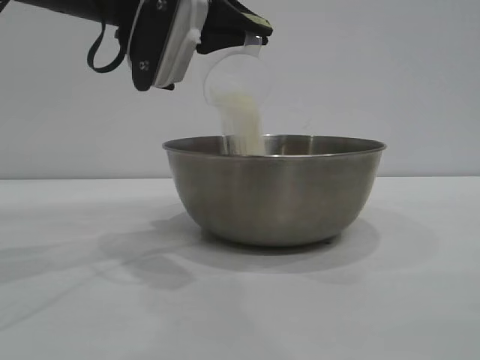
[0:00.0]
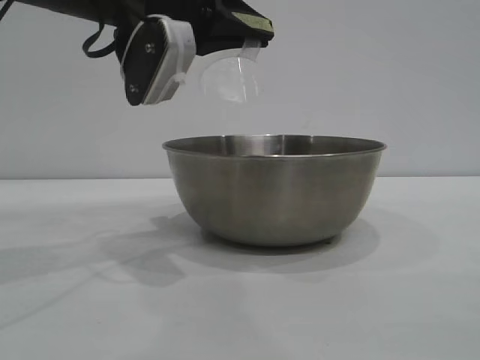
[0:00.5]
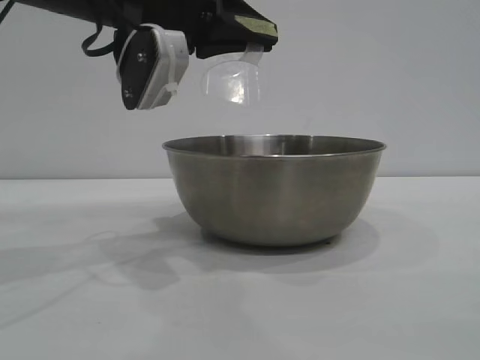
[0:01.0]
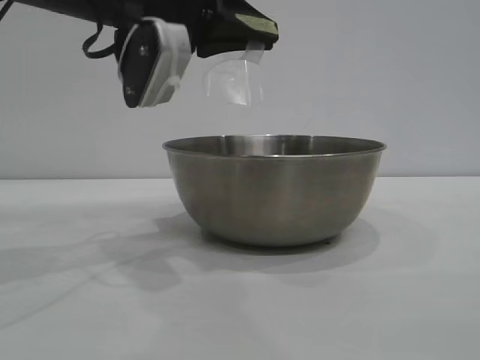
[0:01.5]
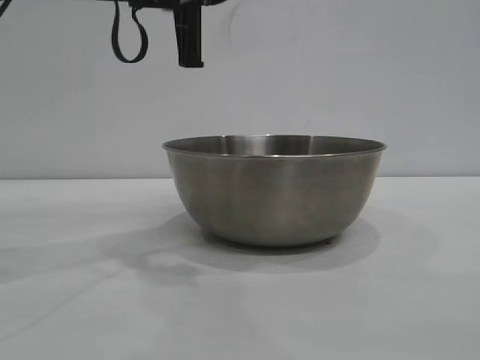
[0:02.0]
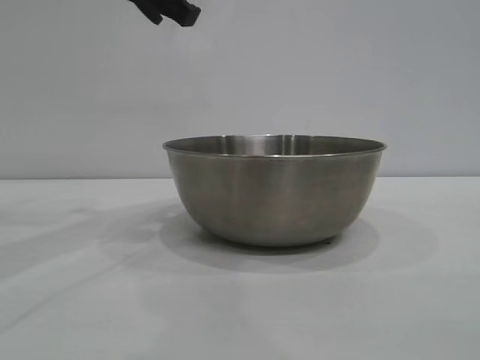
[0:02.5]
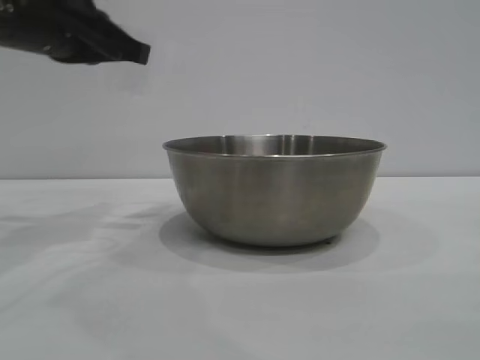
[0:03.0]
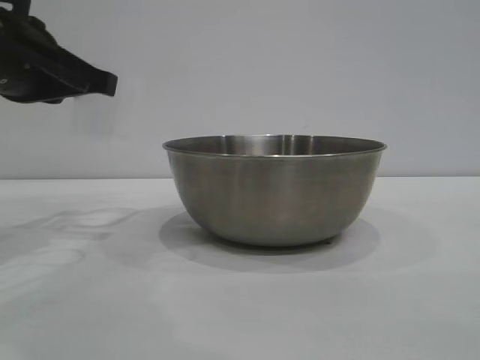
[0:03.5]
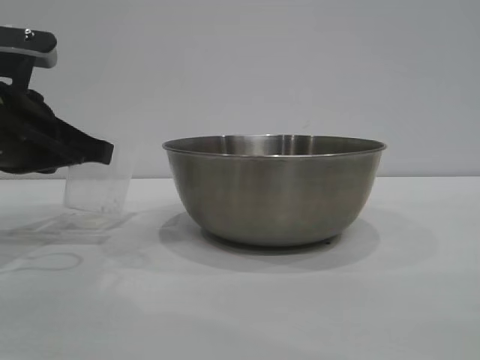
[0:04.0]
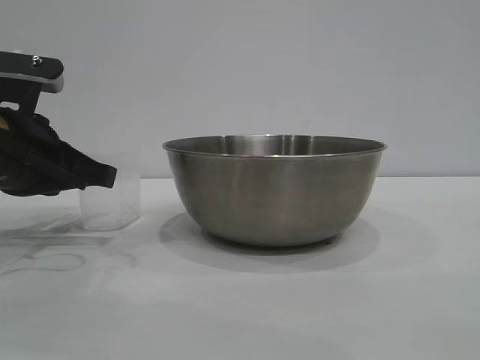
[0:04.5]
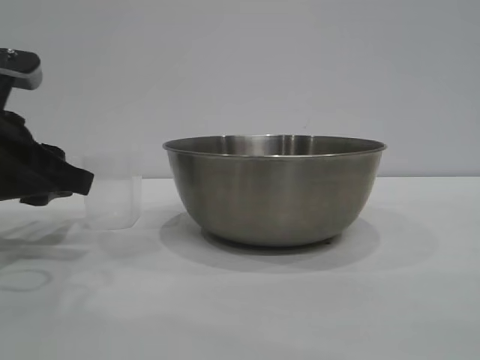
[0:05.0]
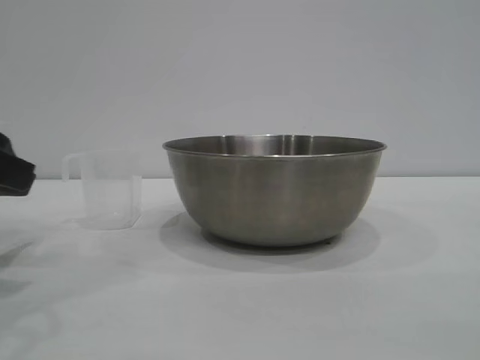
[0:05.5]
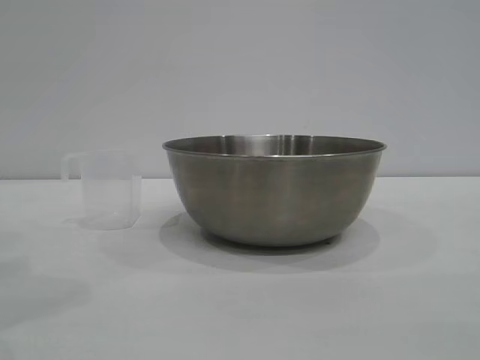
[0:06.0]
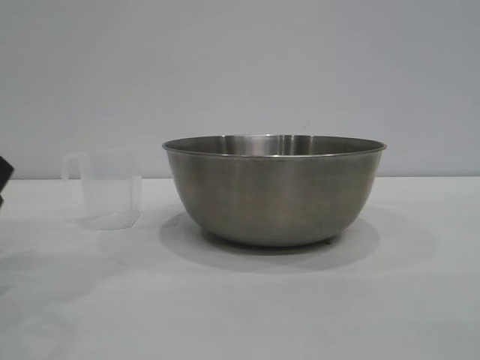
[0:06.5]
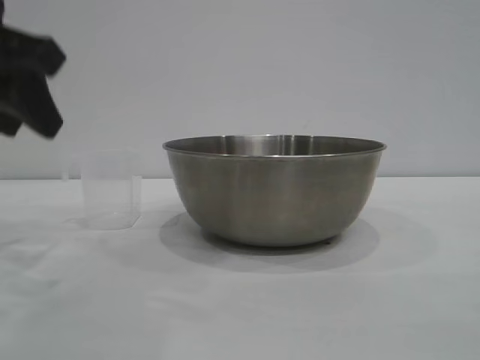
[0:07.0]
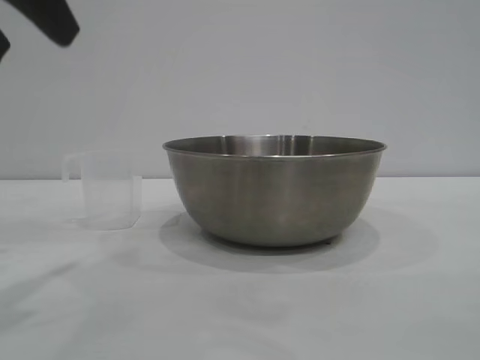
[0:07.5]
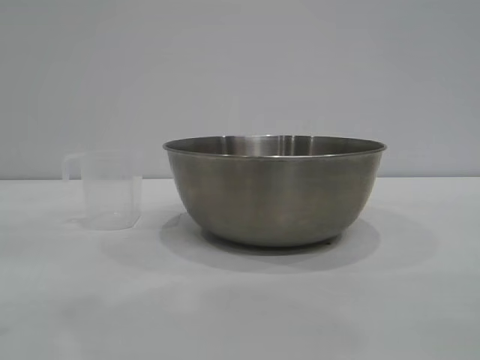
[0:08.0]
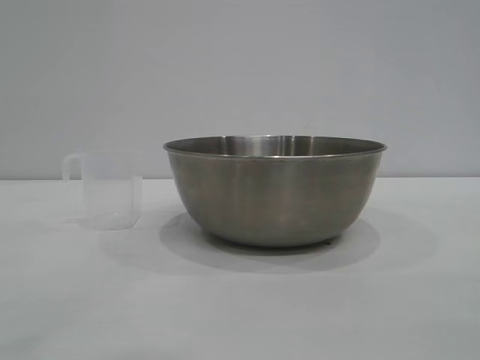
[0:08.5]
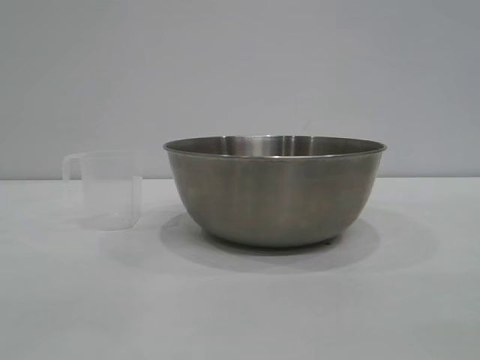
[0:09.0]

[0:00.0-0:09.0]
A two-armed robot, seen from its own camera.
Task of the whole recording: the right gripper grasp the rice container and place it in the center of the table, the left gripper grasp the rice scoop and pour the rice into the rice container.
Step, 0:02.0 to 0:05.5: Place the cup on the table with the left gripper.

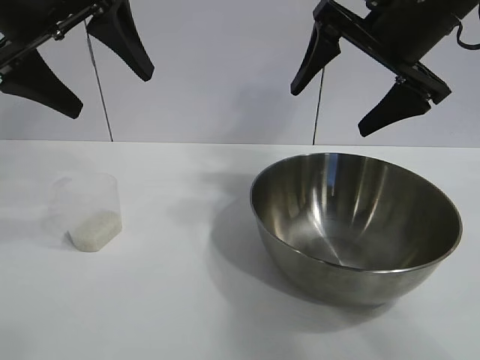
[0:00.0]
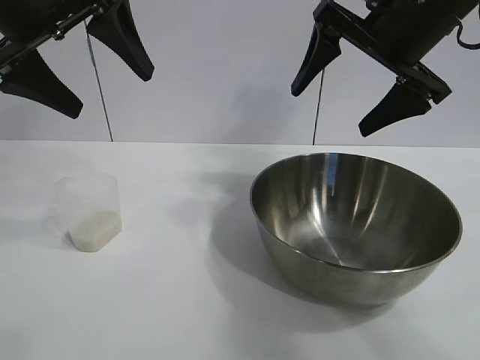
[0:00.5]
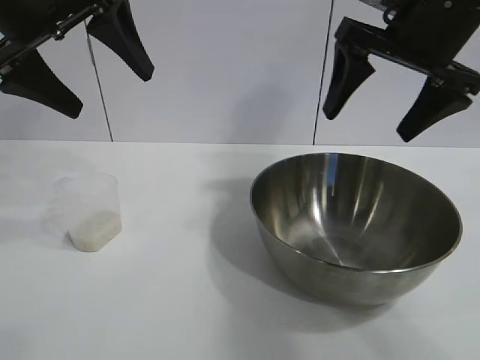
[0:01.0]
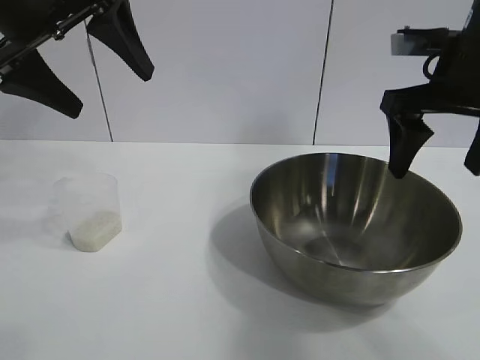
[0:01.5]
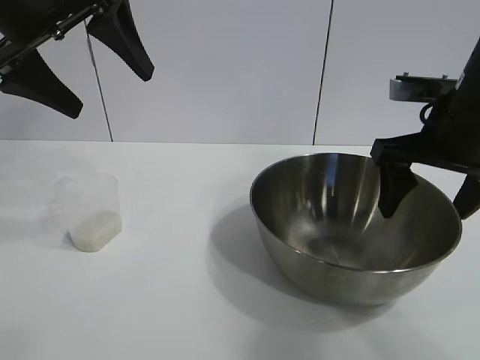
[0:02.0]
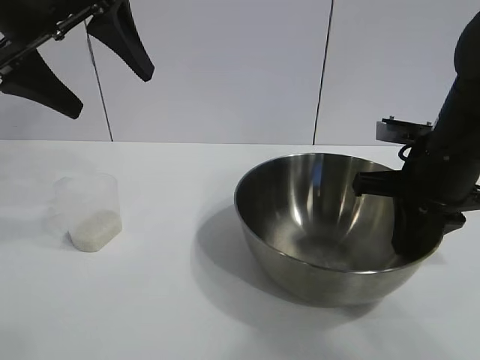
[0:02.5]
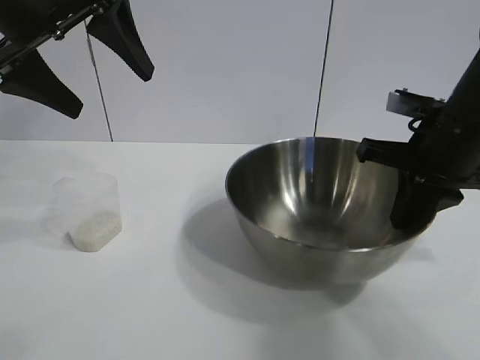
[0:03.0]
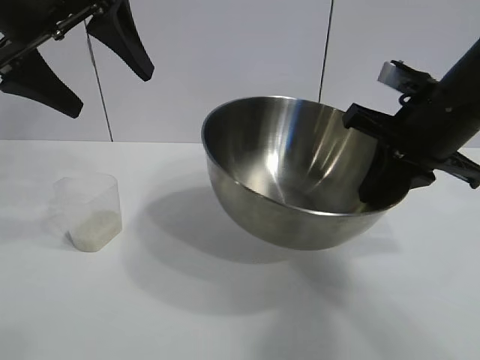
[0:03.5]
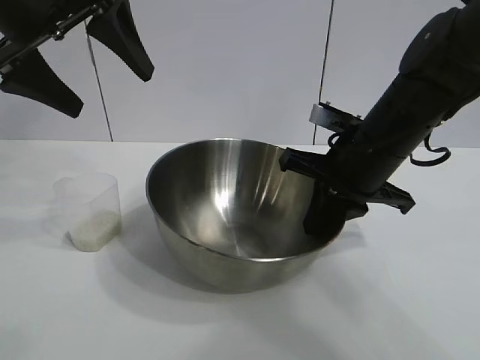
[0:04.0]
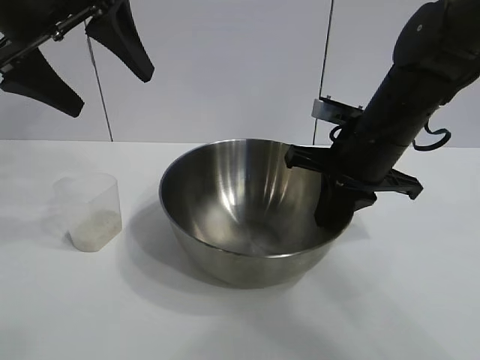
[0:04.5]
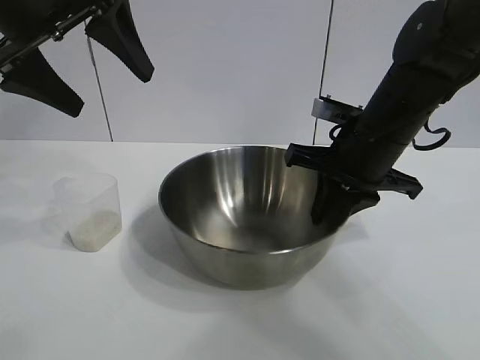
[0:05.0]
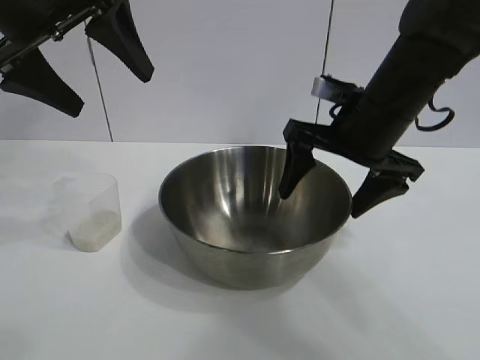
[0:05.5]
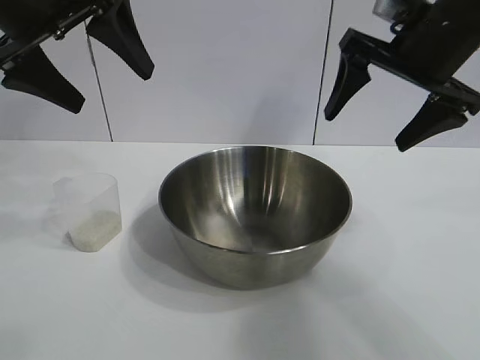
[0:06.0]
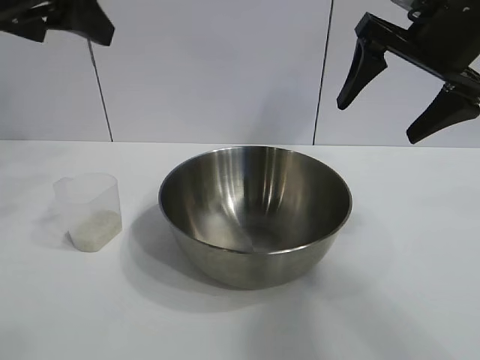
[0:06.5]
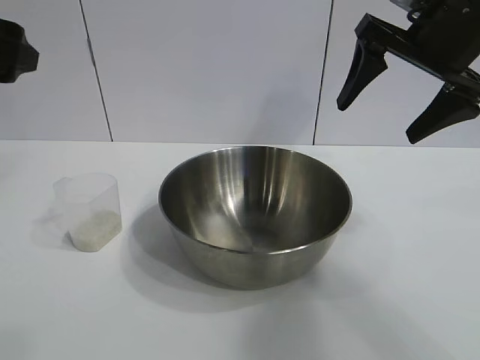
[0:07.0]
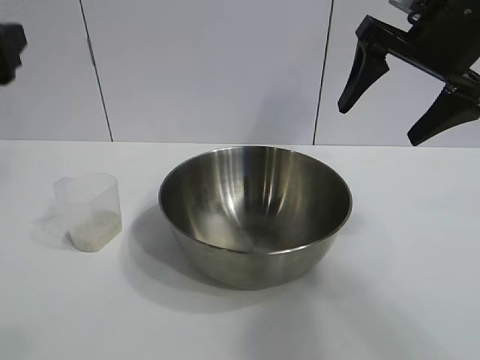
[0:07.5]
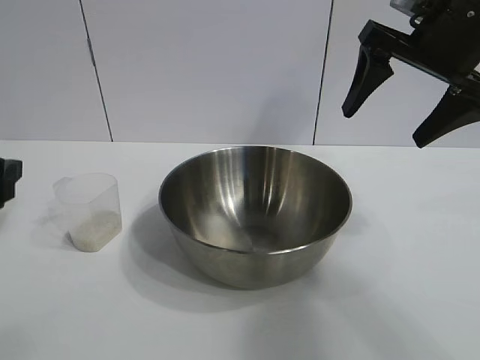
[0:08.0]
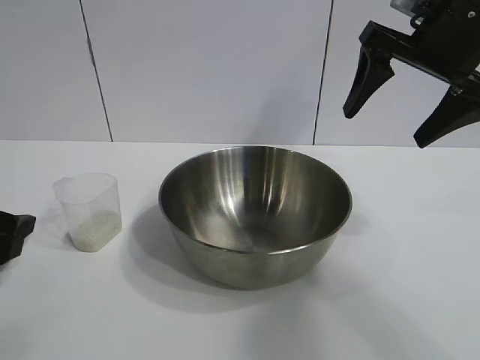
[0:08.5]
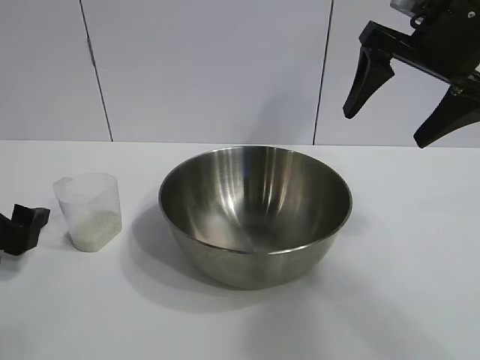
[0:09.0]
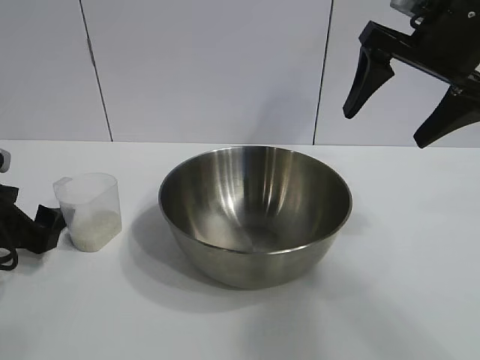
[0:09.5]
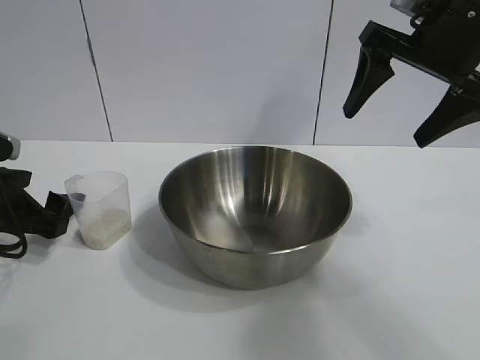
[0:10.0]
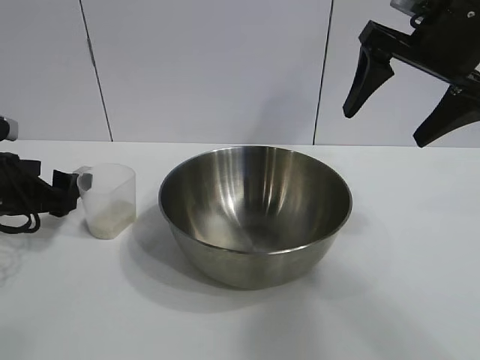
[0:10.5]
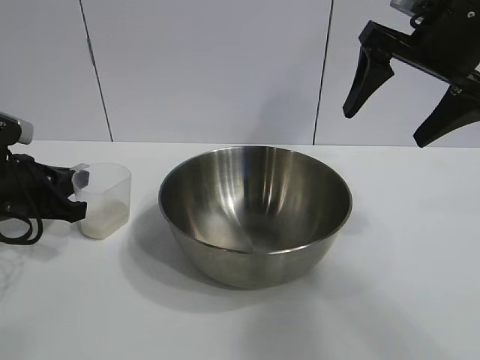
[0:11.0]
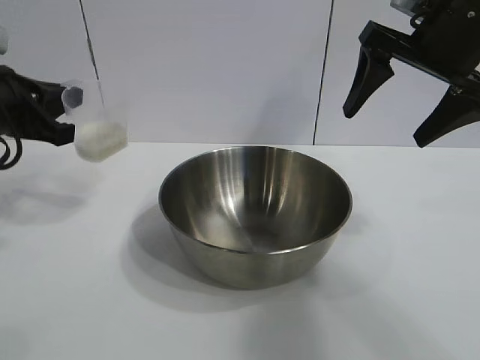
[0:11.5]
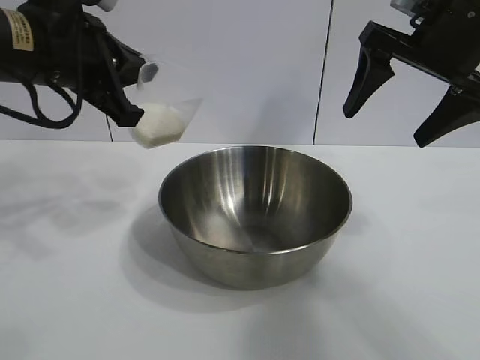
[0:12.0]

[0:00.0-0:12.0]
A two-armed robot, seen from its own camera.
Task of the whole recording: the right gripper grasp the rice container and place it in the center of the table, the left gripper grasp the rice scoop and pour the rice into the rice container.
Step, 0:01.0 to 0:05.0: Move the bowl in the center of view with right gripper.
Step, 0:05.5 to 0:11.0: Grasp the cup with rice in it with left gripper.

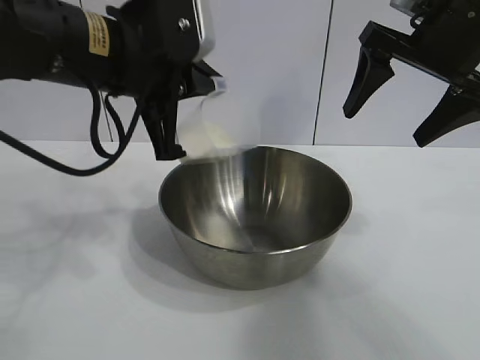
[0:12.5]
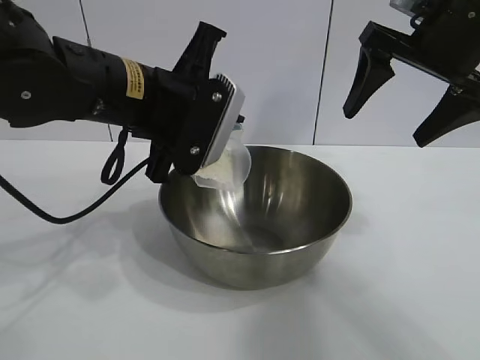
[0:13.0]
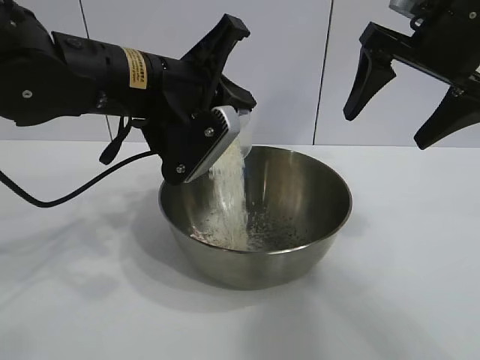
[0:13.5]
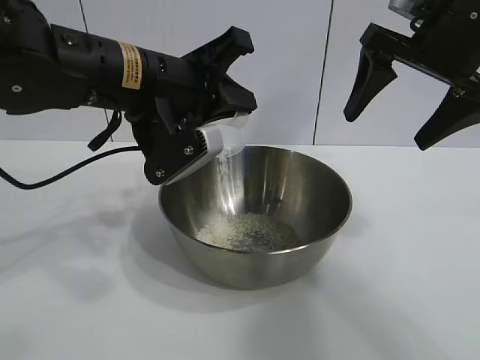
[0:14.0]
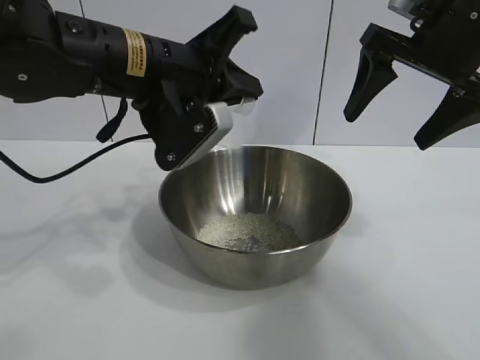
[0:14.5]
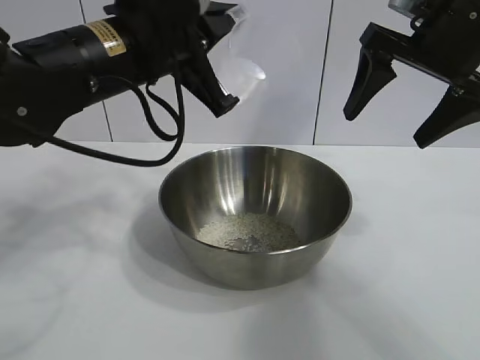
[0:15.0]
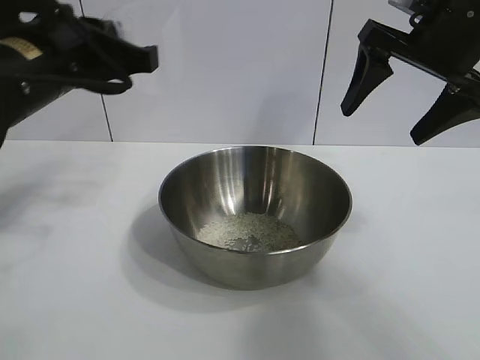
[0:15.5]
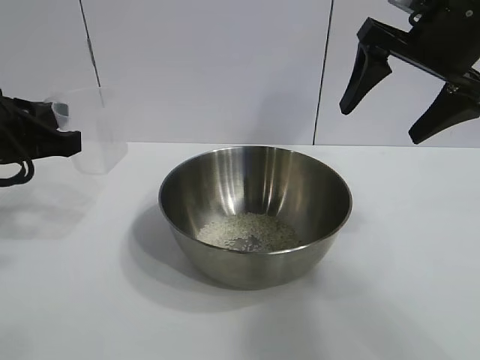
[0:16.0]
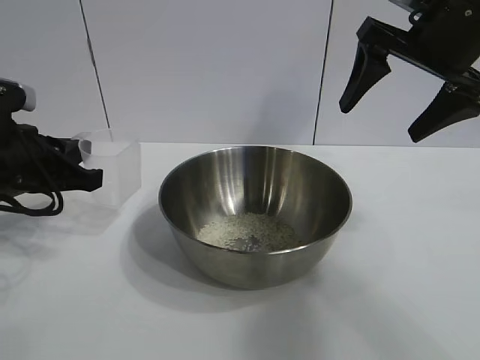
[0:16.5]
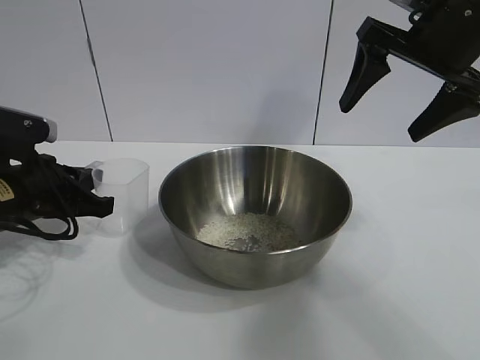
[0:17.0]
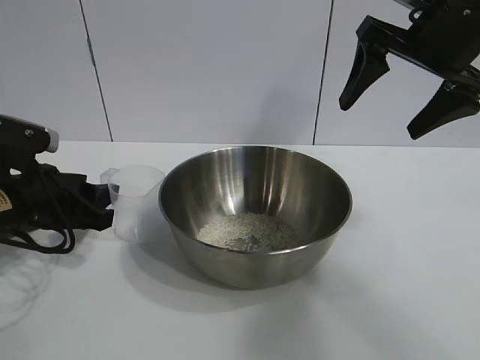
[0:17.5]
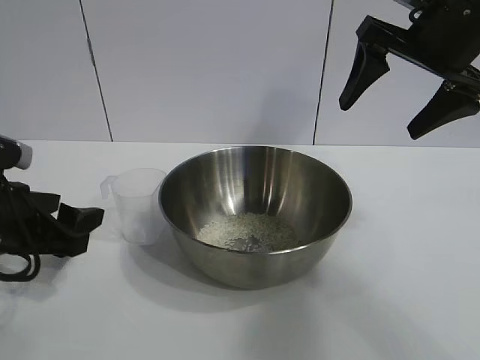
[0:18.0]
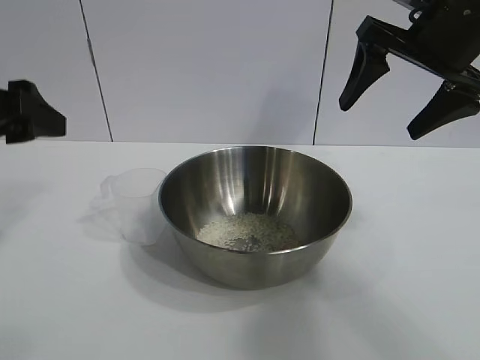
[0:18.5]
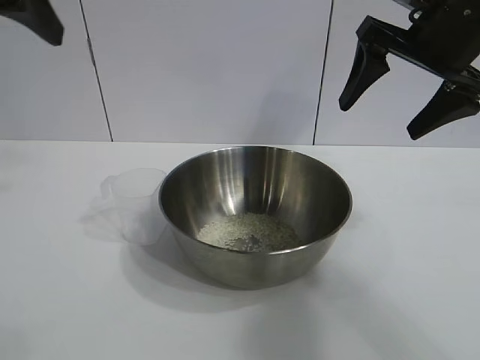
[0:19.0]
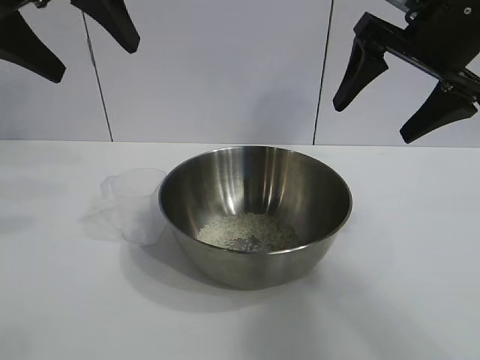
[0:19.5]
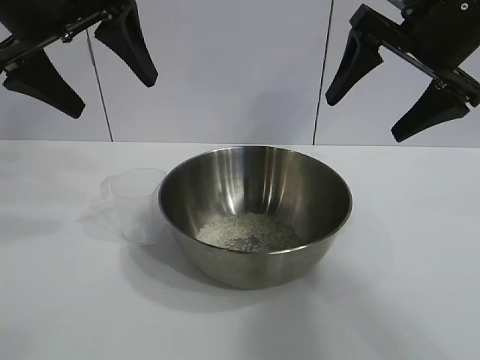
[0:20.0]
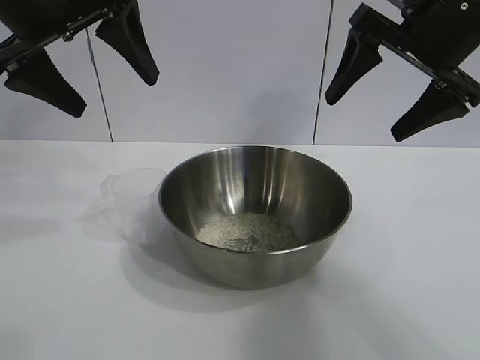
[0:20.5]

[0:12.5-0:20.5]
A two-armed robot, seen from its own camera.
Task of the whole recording: the right gripper grasp the rice container and place it in the center of the table, the left gripper grasp the rice scoop and pour the rice into the rice container.
Step, 0:14.5 to 0:17.0: Place the cup on the table with the left gripper.
